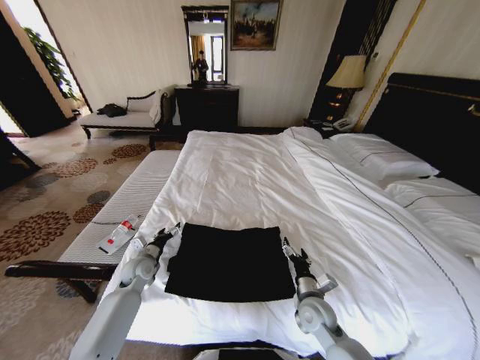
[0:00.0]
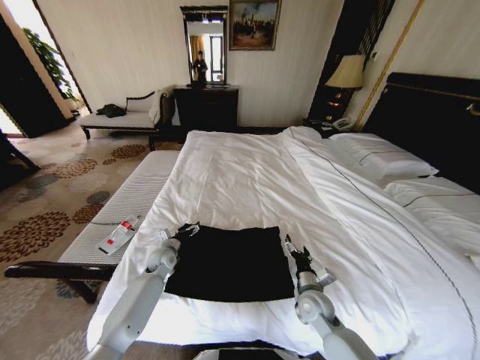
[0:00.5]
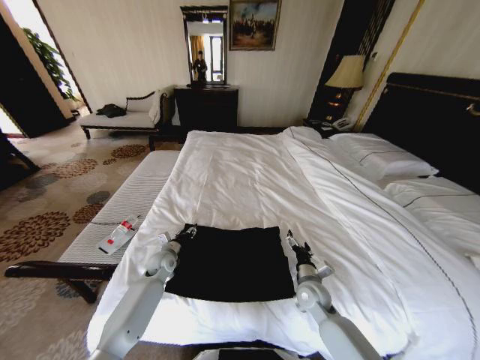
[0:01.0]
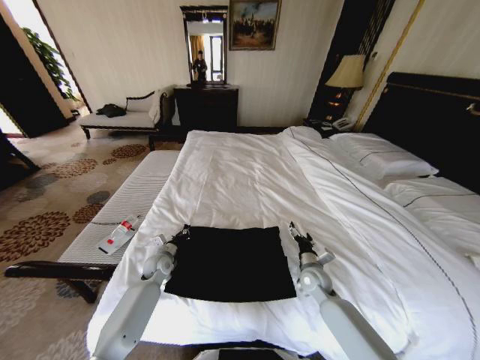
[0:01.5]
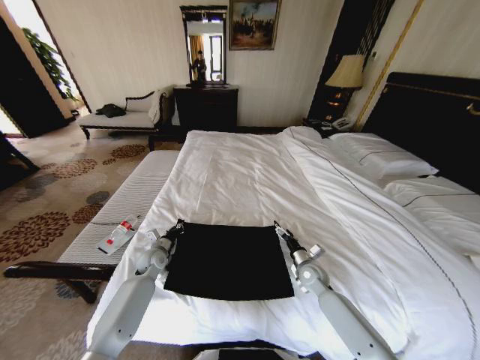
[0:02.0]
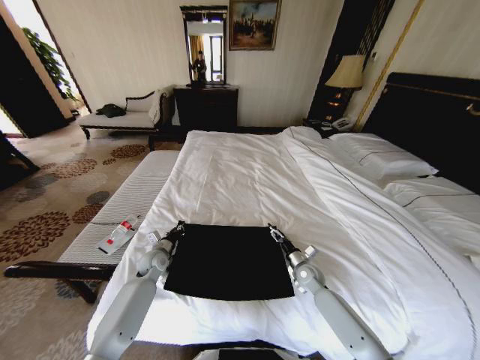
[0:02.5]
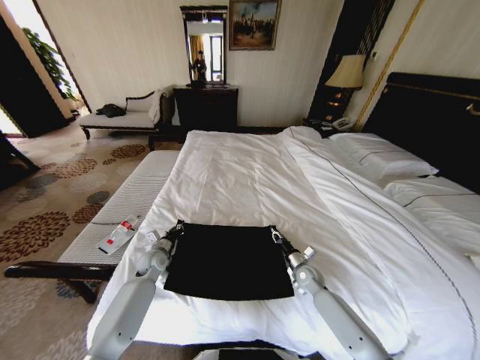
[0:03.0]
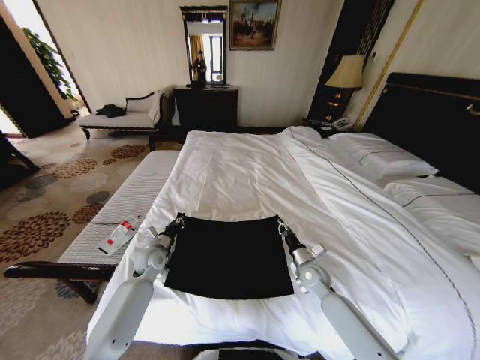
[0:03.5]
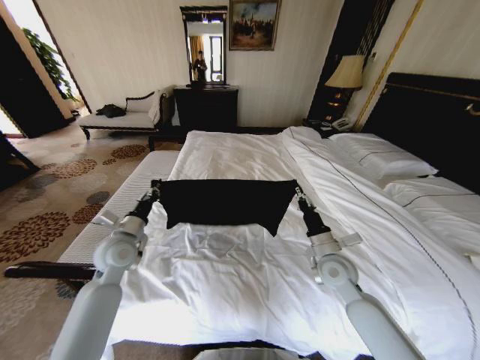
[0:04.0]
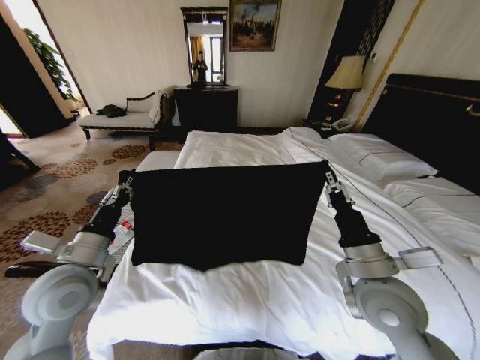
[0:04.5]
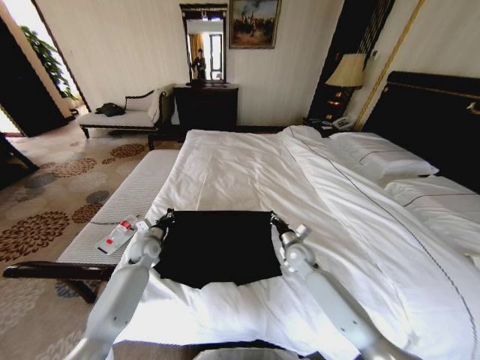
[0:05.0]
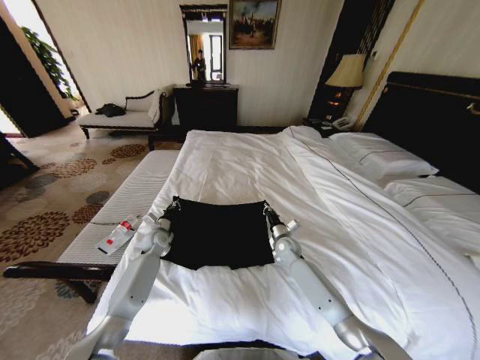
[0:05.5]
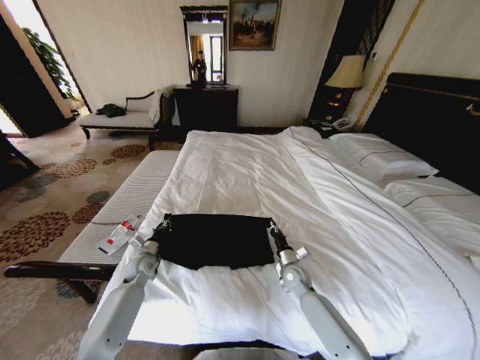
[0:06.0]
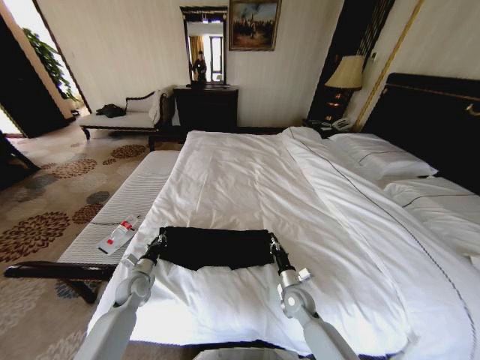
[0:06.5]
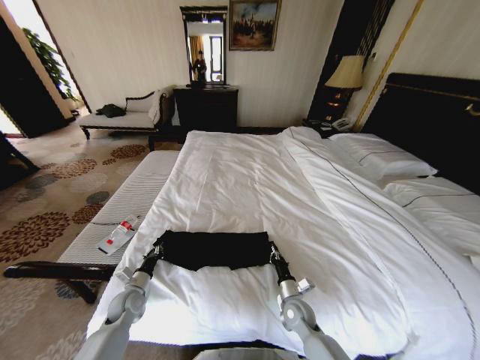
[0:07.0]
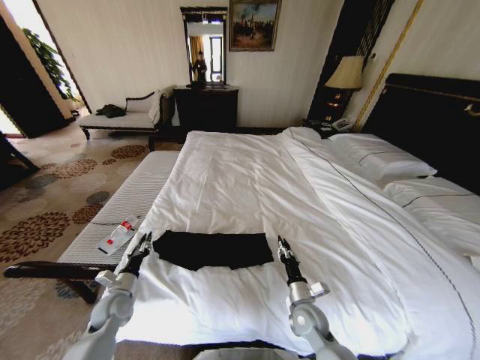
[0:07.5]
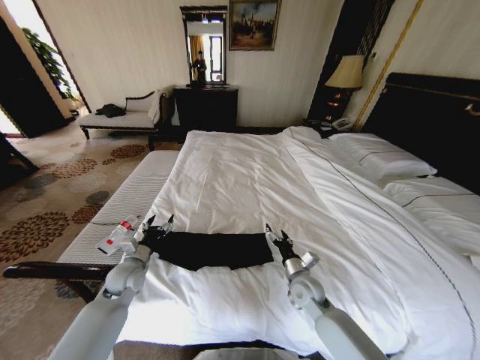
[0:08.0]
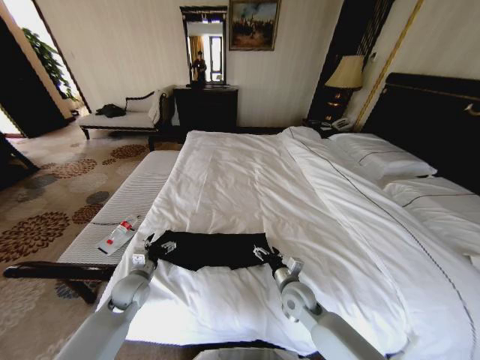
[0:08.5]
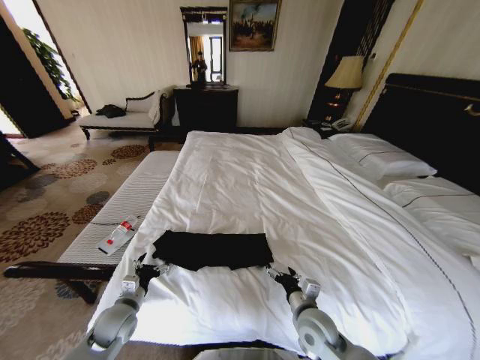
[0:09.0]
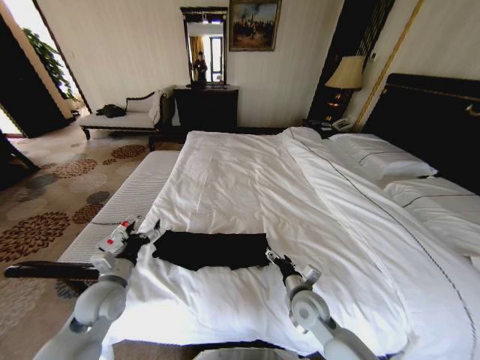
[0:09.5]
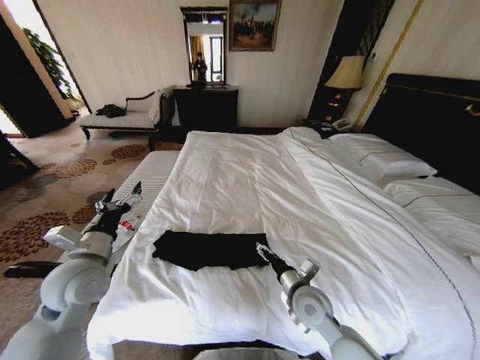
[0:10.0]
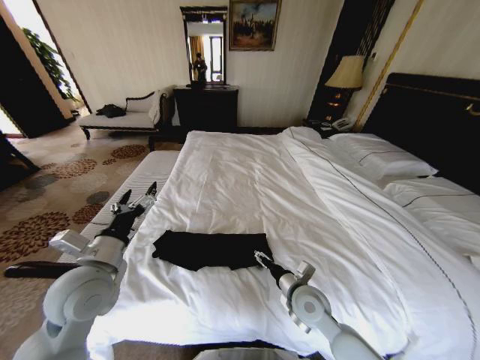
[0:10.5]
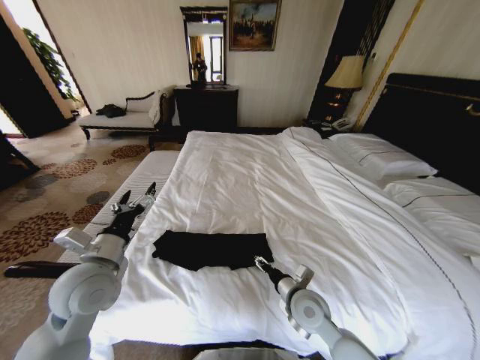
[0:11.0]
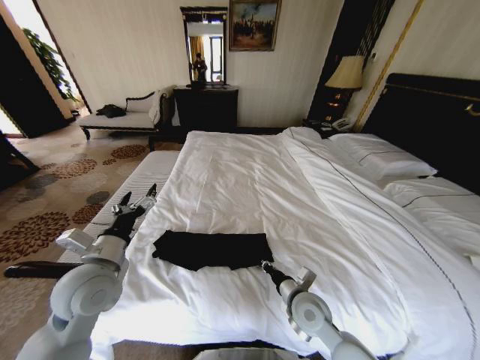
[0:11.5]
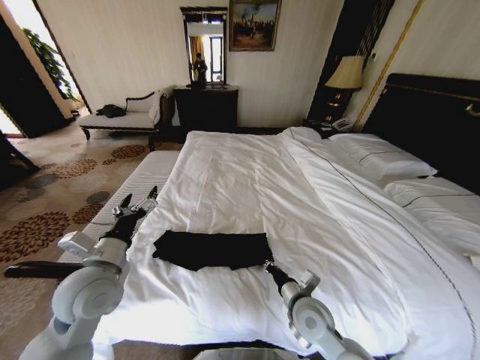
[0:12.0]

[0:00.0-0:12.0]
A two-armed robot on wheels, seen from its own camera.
Task of the whole recording: Fold the clothes on the bed.
0:00.0 to 0:02.0: The right gripper travels forward and to the right by approximately 15 cm. Meanwhile the left gripper changes place by approximately 5 cm, and closes.
0:02.0 to 0:04.0: The left gripper travels upward and backward by roughly 20 cm. Meanwhile the right gripper goes approximately 15 cm upward, and closes its fingers.
0:04.0 to 0:06.0: Both grippers move downward, some 20 cm.
0:06.0 to 0:08.0: The right gripper heads backward and upward, covering some 10 cm, and opens. Meanwhile the left gripper shifts about 10 cm upward and backward, and opens.
0:08.0 to 0:10.0: The left gripper travels upward and backward by about 15 cm. Meanwhile the right gripper shifts roughly 10 cm upward and backward.
0:10.0 to 0:12.0: The right gripper closes up.

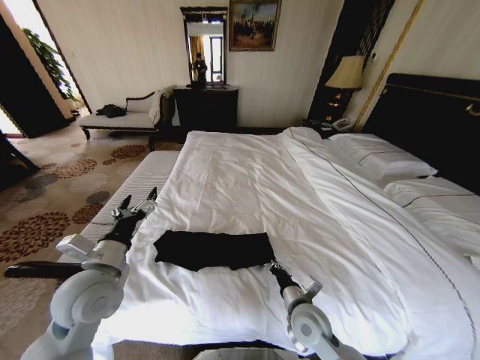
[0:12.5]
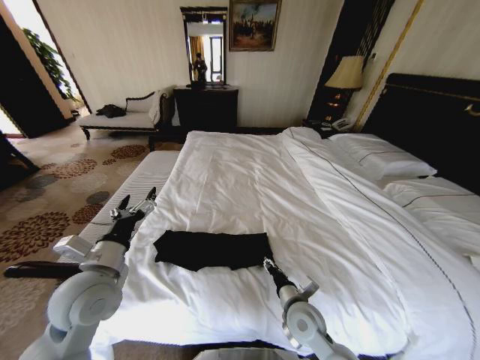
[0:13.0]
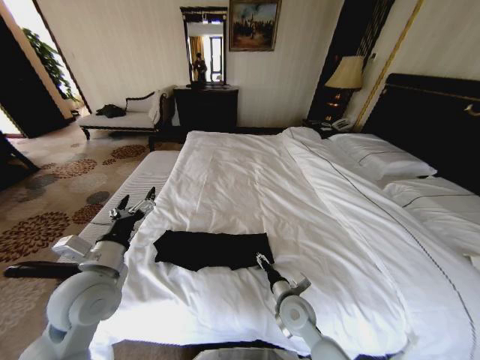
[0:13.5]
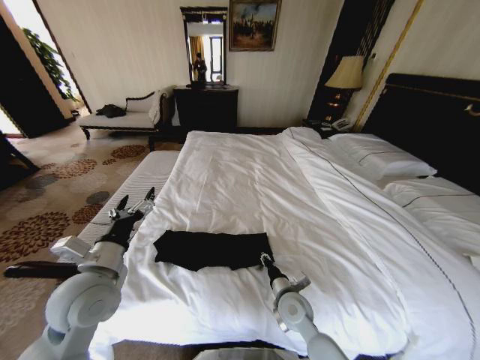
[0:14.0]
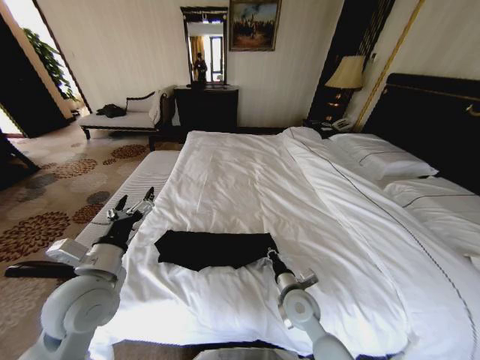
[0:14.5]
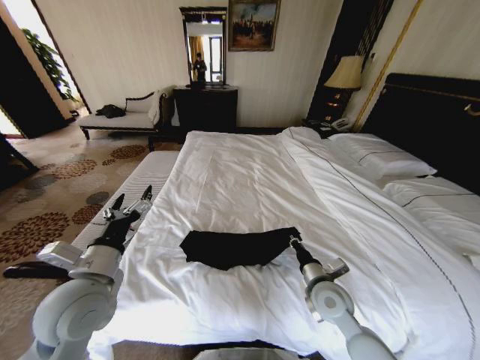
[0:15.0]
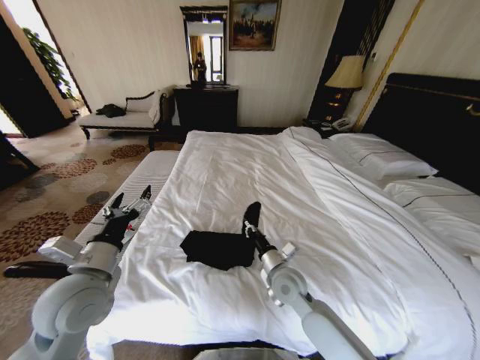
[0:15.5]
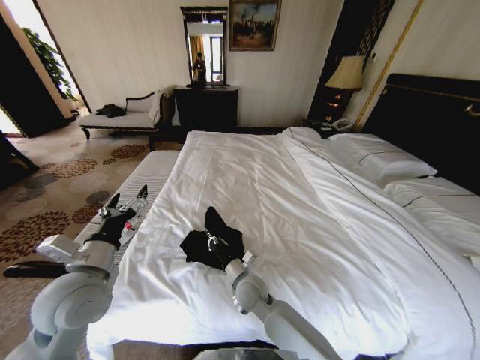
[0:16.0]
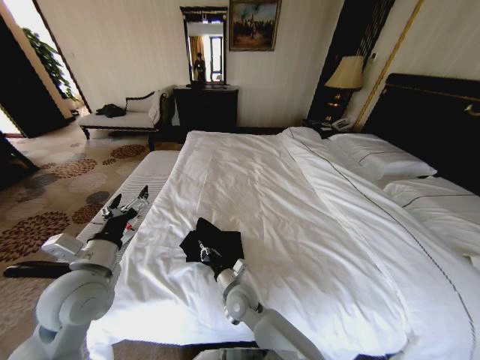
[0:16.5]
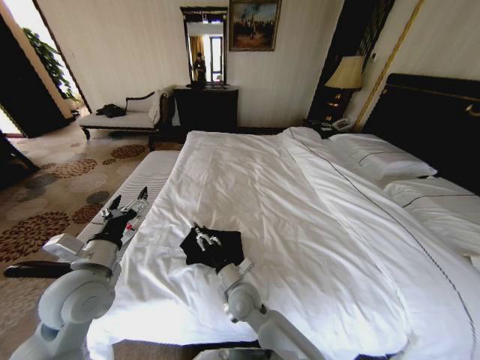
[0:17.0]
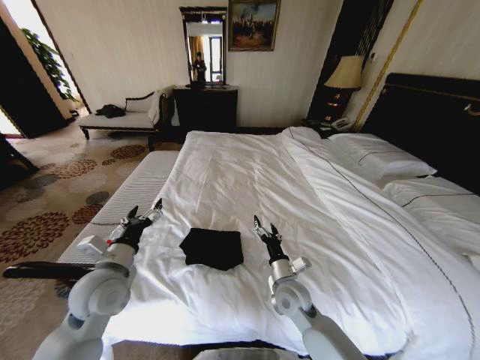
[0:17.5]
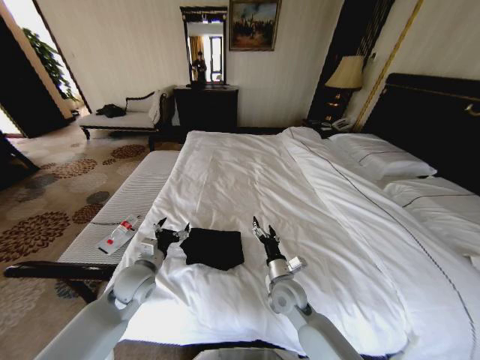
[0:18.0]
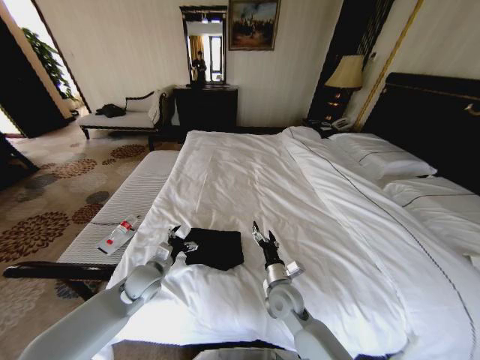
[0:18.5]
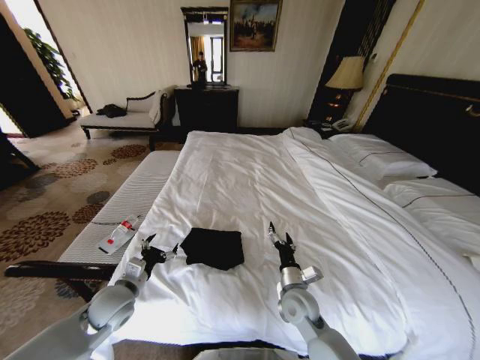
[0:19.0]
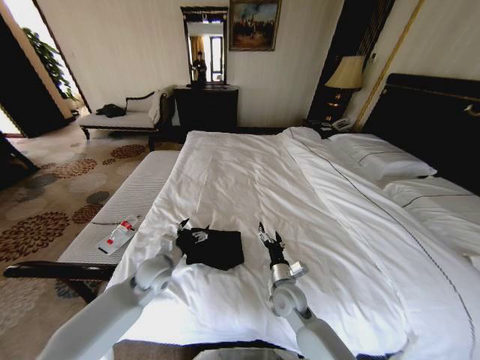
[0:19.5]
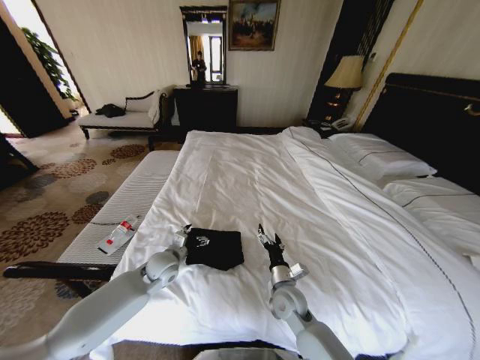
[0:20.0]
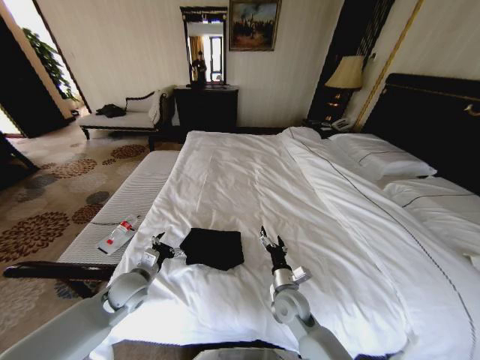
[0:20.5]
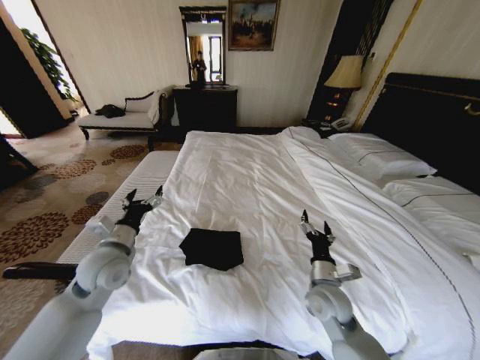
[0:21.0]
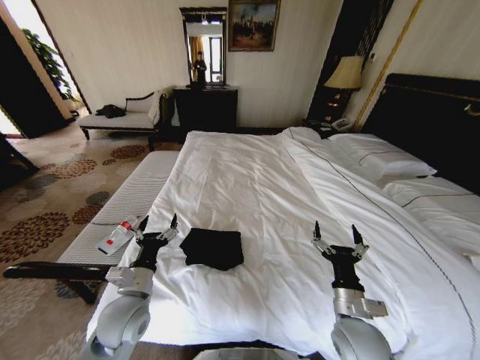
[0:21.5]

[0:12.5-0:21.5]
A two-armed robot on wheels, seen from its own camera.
Task of the whole recording: Fold the clothes on the bed.
0:12.5 to 0:14.5: The right gripper opens and closes again.
0:14.5 to 0:17.0: The right gripper is displaced to the left by some 15 cm, and opens its fingers.
0:17.0 to 0:19.5: The left gripper travels downward, forward and to the right by roughly 20 cm, while the right gripper moves to the right, about 15 cm, and opens its fingers.
0:19.5 to 0:21.5: The left gripper travels backward by roughly 15 cm. Meanwhile the right gripper goes approximately 15 cm backward, to the right and upward.

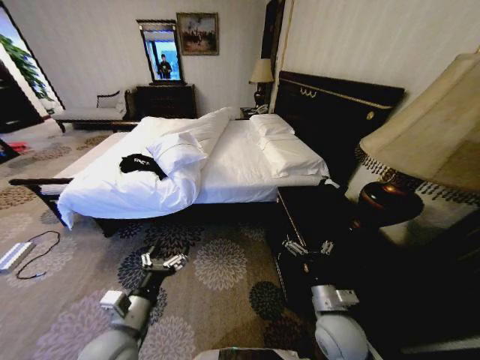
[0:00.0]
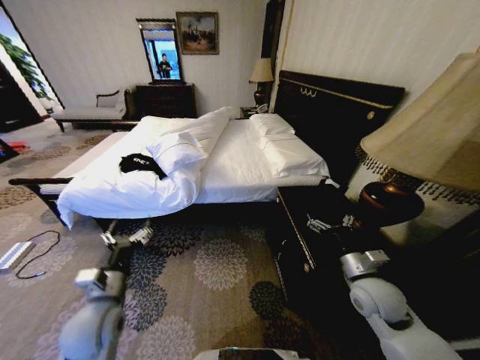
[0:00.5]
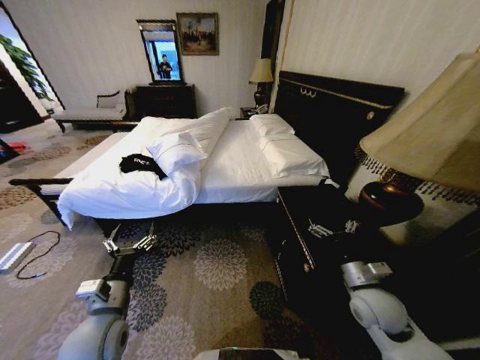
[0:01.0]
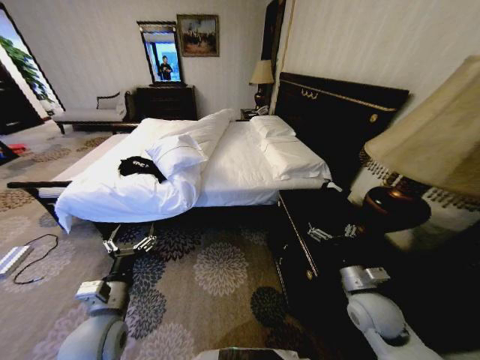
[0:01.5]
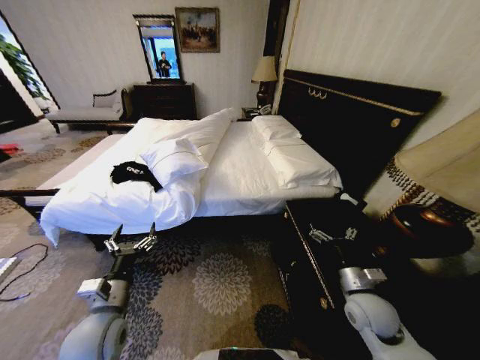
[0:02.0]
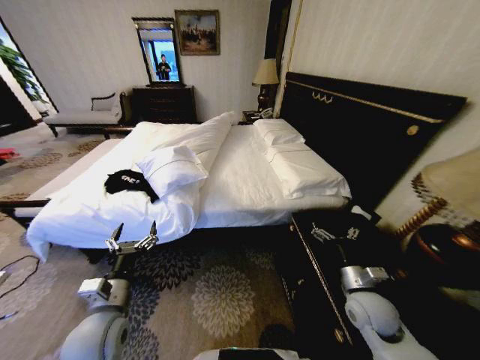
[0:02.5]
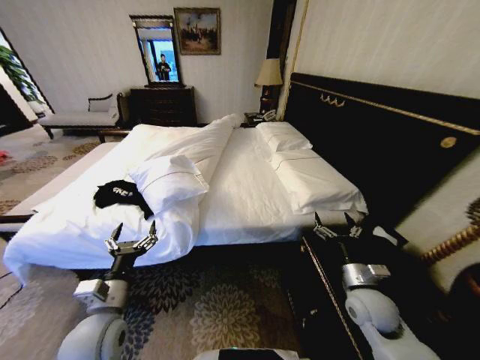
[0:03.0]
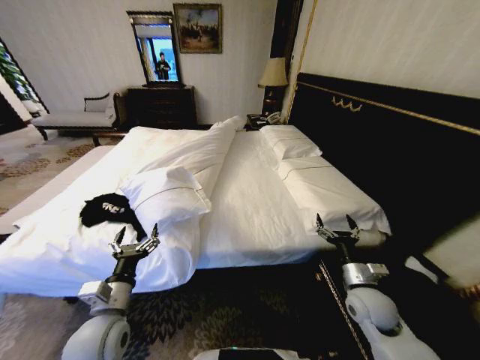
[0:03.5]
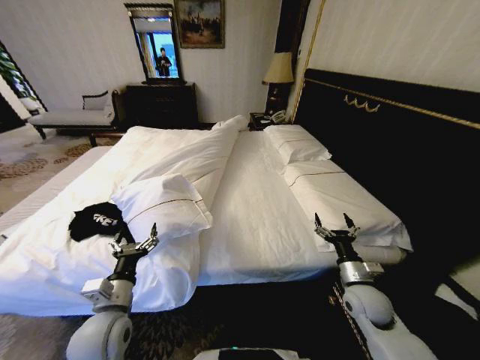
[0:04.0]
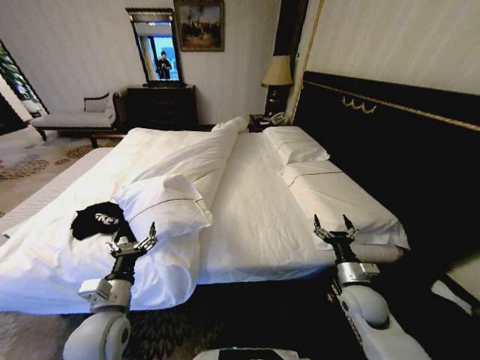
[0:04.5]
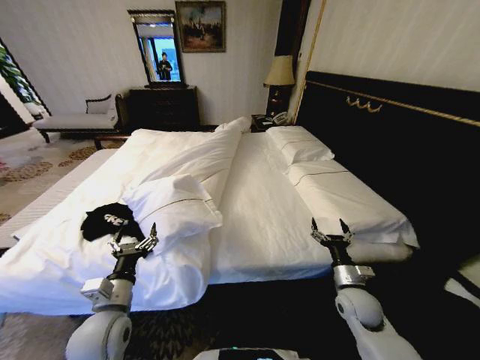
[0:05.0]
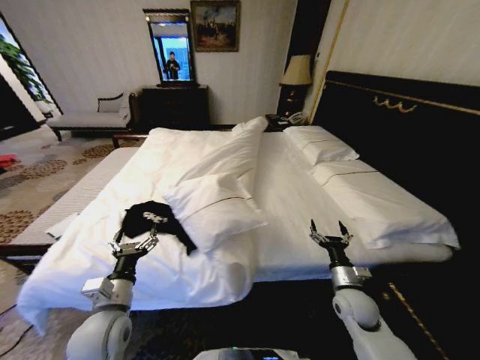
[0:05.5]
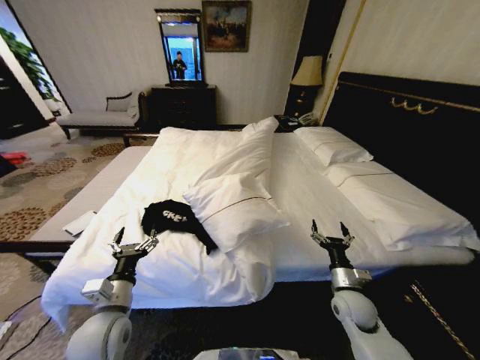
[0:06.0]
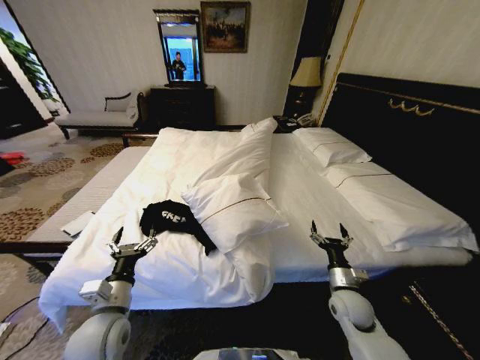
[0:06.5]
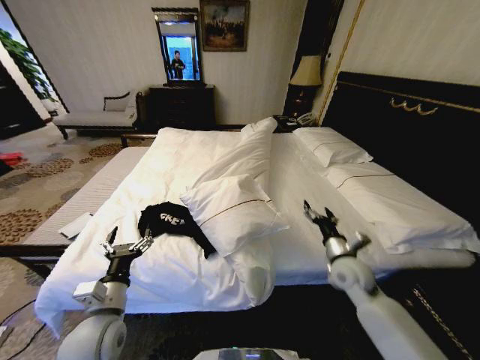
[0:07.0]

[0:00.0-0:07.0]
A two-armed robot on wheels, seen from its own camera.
Task of the whole recording: Fold the clothes on the bed.
0:05.0 to 0:07.0: The right gripper heads upward and forward, covering about 10 cm.
